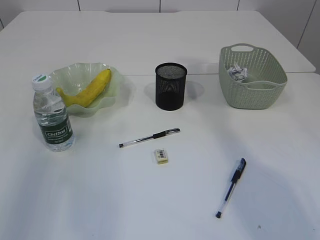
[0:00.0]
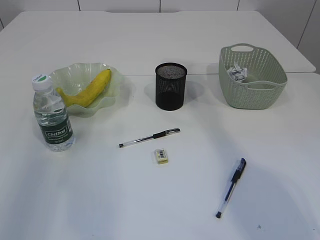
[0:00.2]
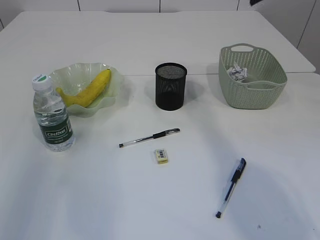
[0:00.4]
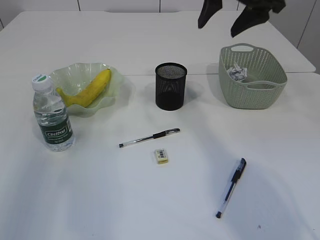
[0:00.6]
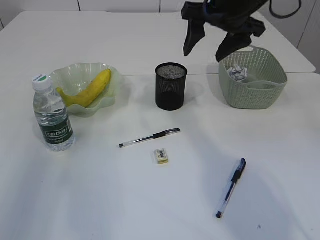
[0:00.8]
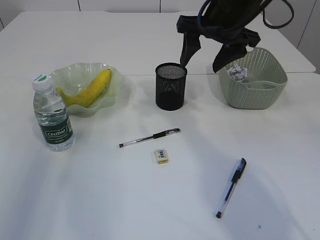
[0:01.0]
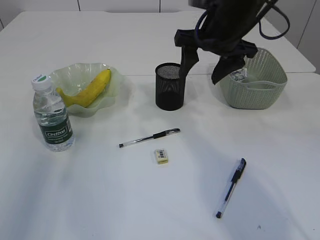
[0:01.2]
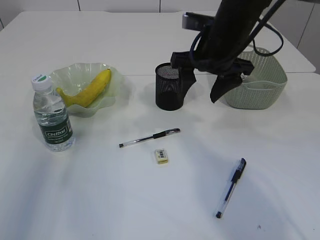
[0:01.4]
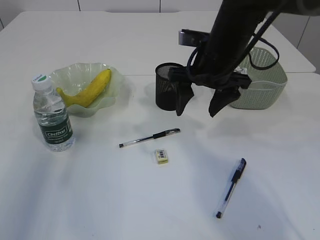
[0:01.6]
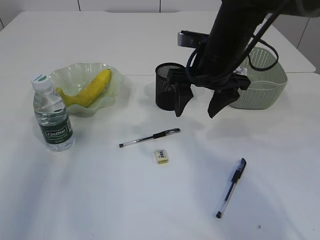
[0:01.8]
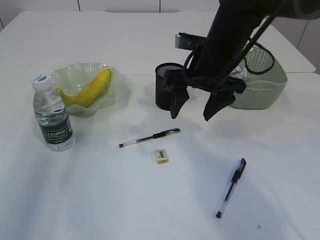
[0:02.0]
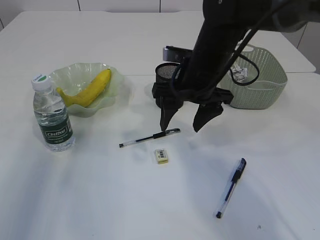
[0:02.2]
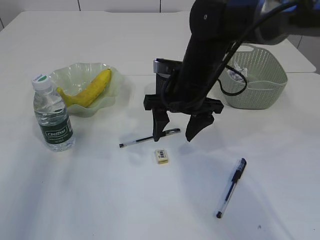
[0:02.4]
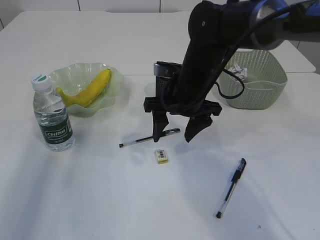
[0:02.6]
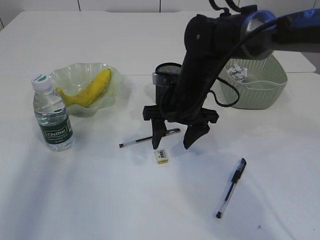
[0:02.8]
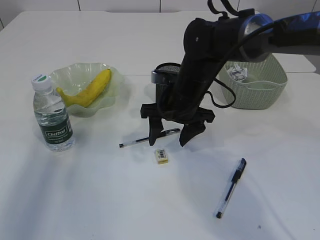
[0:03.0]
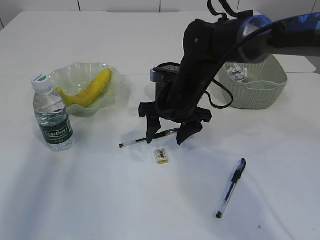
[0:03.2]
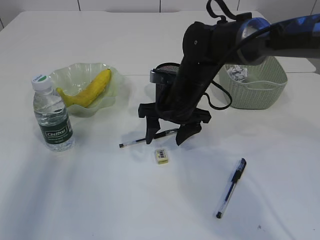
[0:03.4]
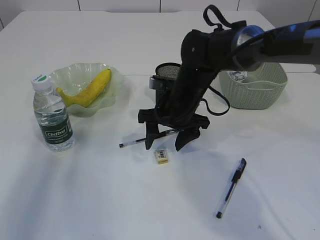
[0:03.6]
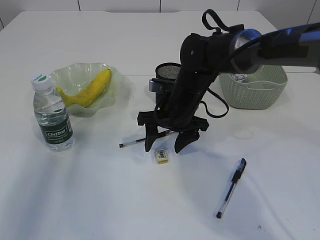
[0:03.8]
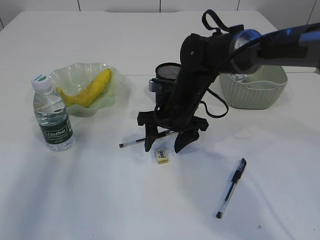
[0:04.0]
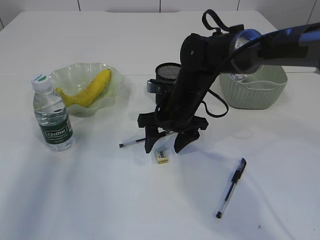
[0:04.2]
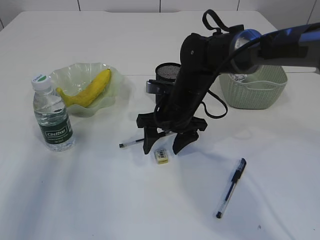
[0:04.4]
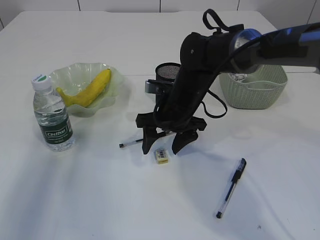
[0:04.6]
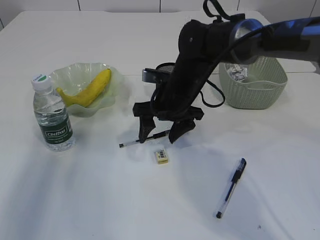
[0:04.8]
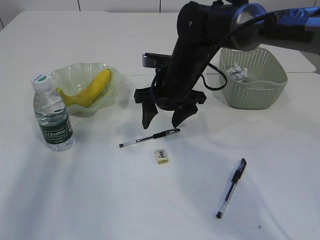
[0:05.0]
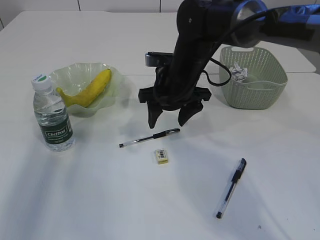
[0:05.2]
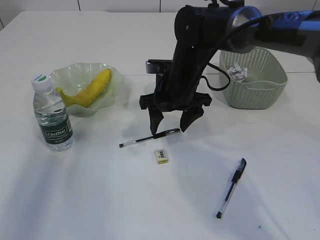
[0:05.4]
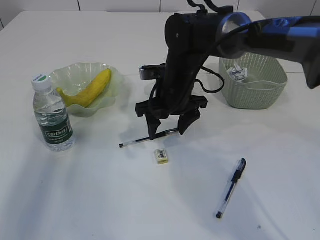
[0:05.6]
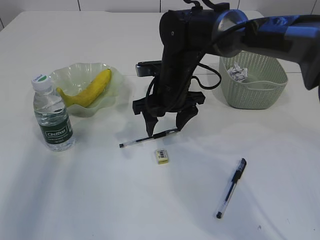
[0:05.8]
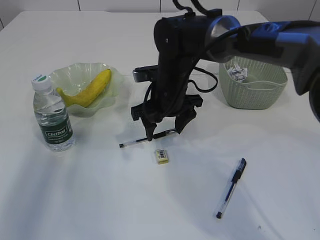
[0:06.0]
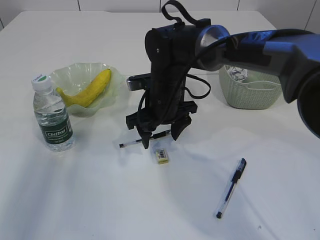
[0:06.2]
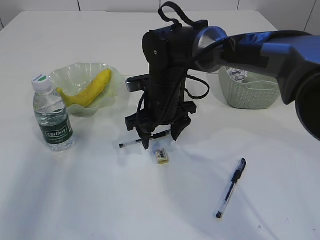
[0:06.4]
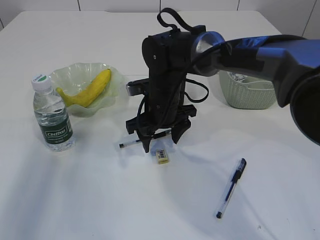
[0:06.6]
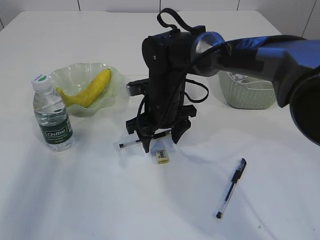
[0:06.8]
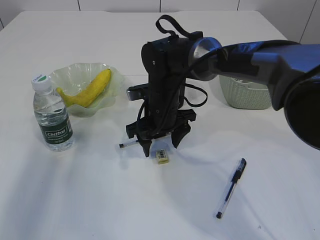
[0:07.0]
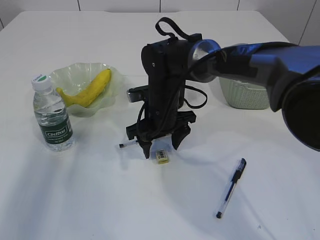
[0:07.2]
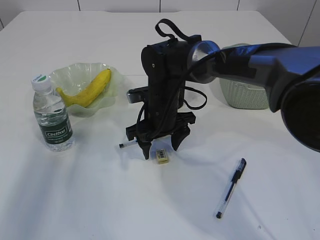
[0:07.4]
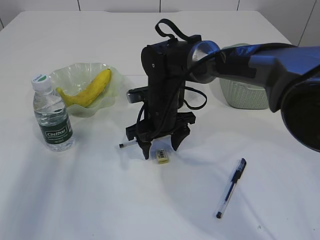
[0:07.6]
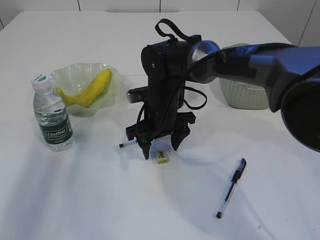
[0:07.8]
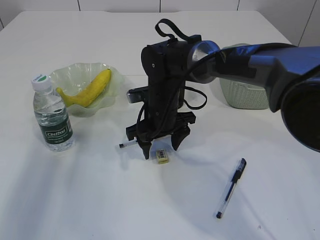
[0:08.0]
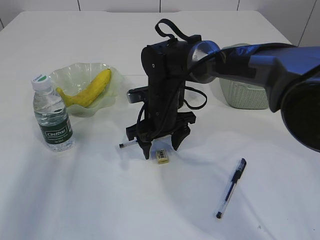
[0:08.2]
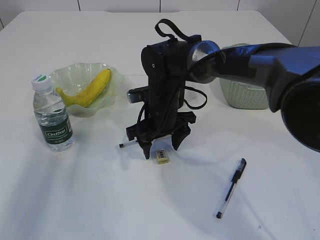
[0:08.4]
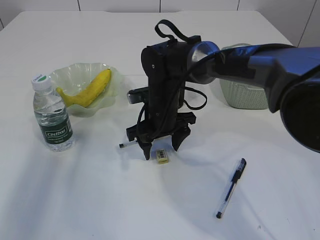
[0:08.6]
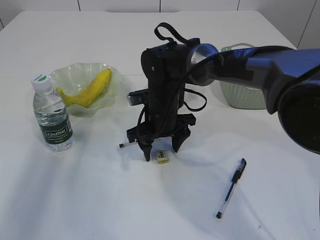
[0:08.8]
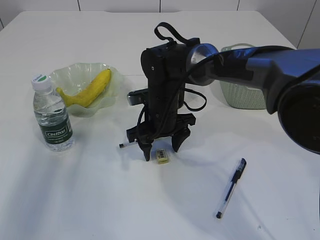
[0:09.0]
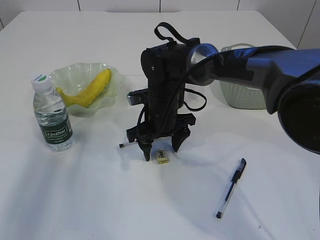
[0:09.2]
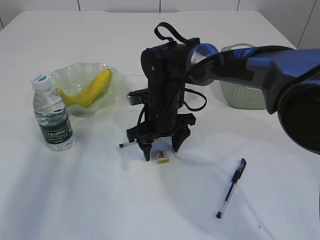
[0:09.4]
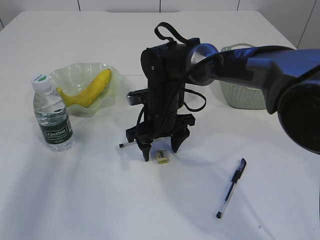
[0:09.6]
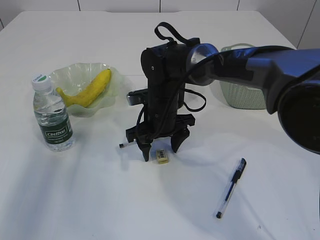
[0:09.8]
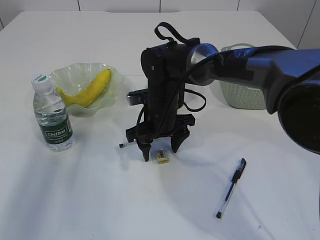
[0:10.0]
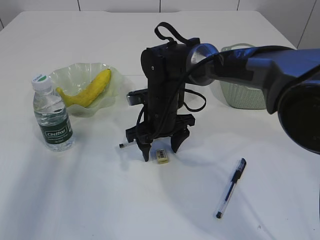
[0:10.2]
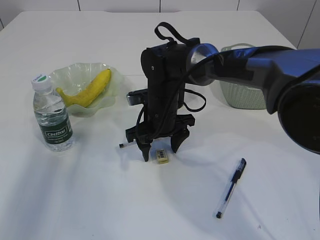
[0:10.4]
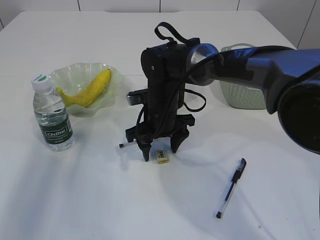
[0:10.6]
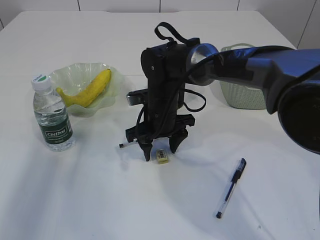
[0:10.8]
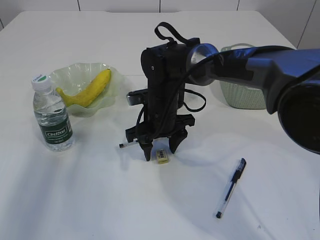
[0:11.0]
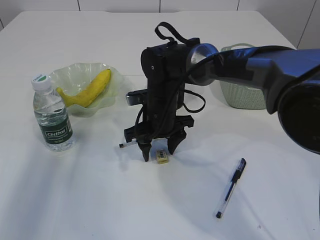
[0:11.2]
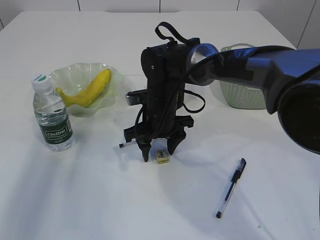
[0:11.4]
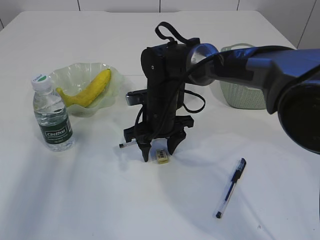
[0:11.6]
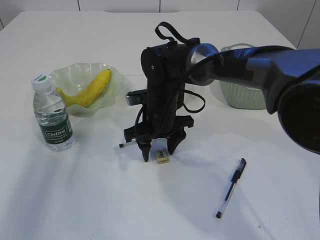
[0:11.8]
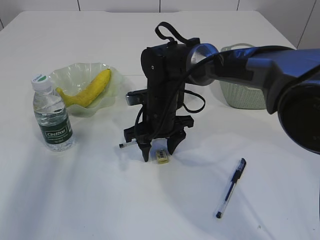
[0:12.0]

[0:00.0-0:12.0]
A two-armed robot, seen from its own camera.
0:00.0 to 0:01.6: The right gripper moves downward and to the left, about 25 cm.
0:01.6 to 0:03.0: The right gripper heads downward, covering approximately 10 cm.
0:03.0 to 0:07.6: The grippers move only a little.
0:07.6 to 0:12.0: Both grippers stay put.

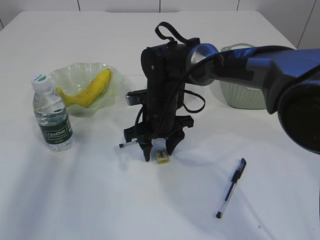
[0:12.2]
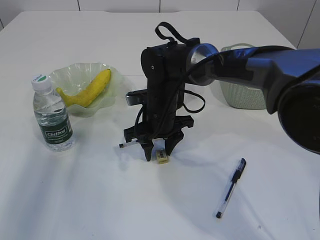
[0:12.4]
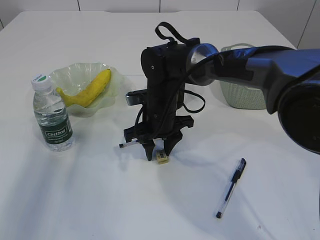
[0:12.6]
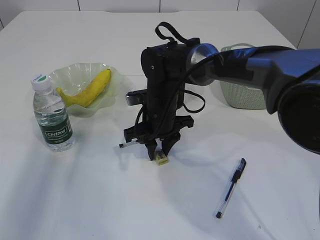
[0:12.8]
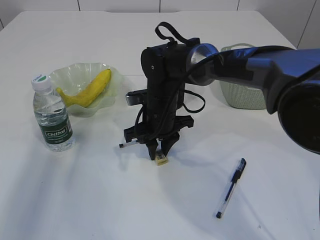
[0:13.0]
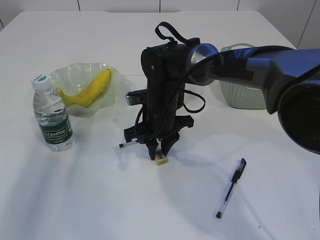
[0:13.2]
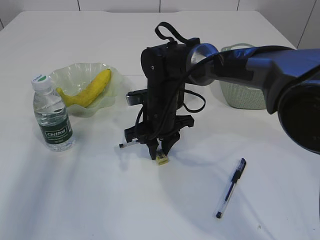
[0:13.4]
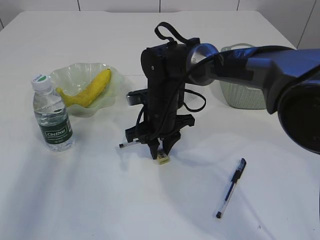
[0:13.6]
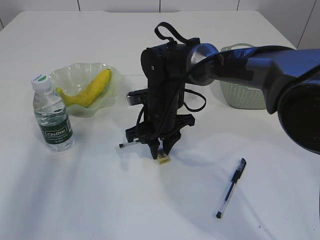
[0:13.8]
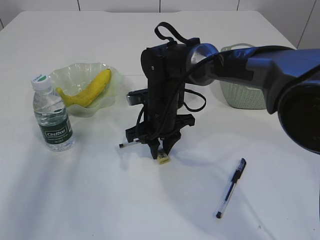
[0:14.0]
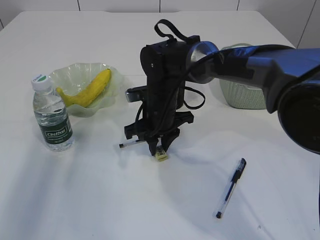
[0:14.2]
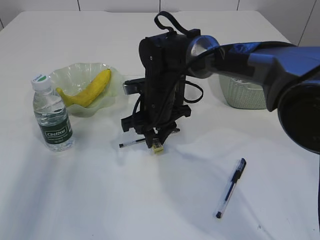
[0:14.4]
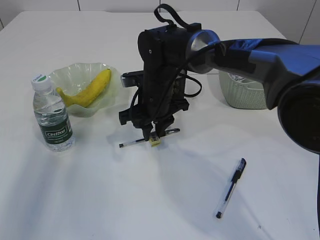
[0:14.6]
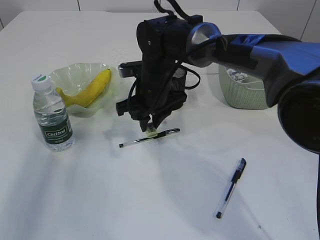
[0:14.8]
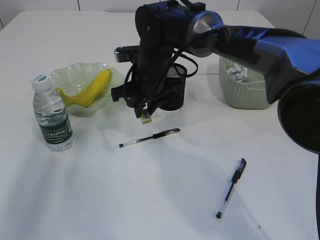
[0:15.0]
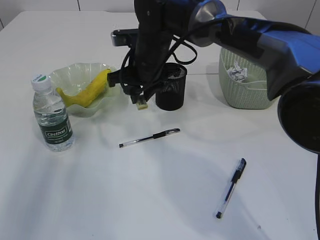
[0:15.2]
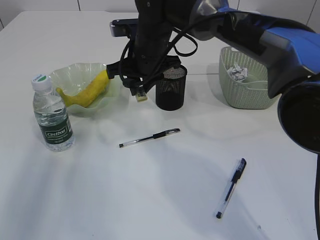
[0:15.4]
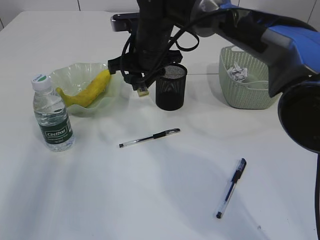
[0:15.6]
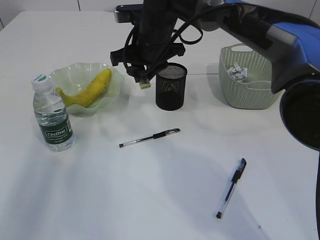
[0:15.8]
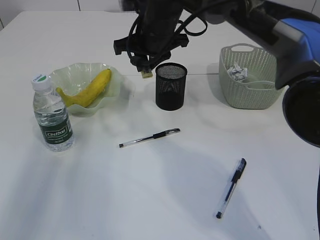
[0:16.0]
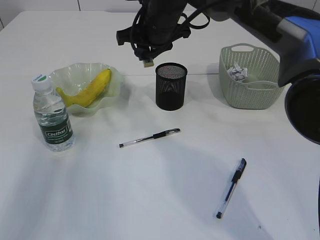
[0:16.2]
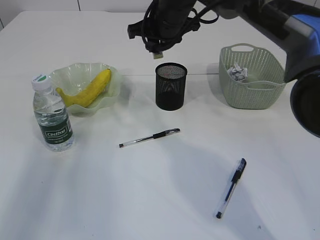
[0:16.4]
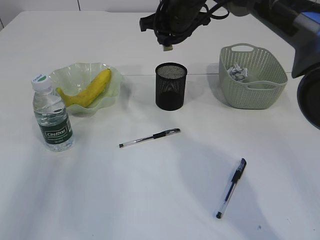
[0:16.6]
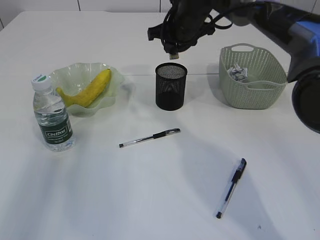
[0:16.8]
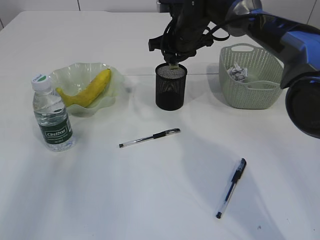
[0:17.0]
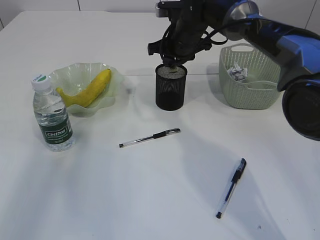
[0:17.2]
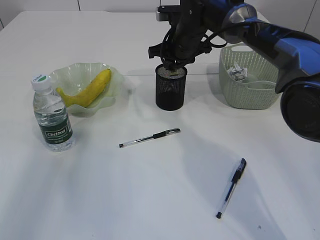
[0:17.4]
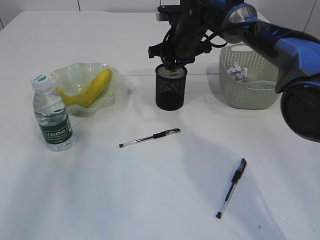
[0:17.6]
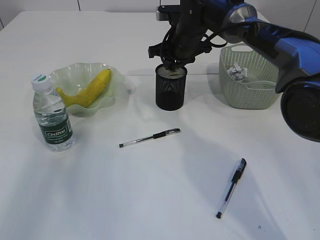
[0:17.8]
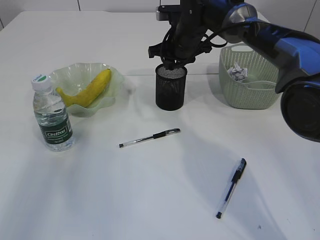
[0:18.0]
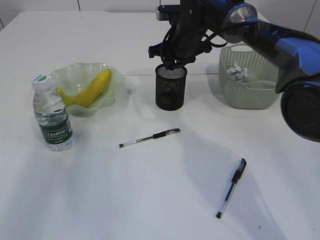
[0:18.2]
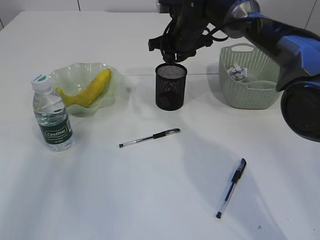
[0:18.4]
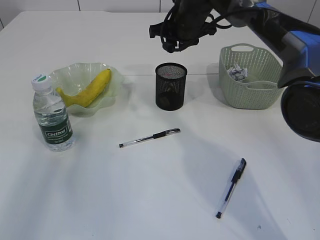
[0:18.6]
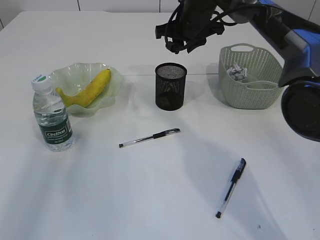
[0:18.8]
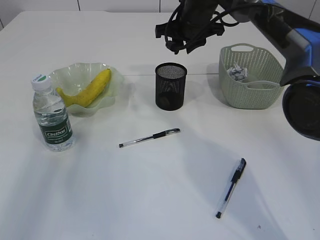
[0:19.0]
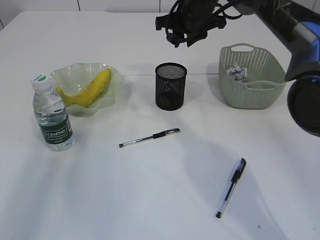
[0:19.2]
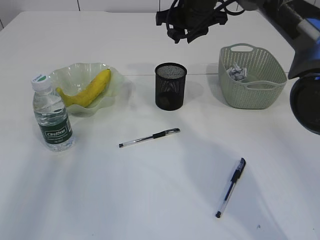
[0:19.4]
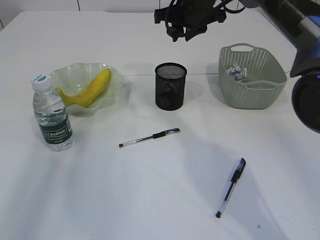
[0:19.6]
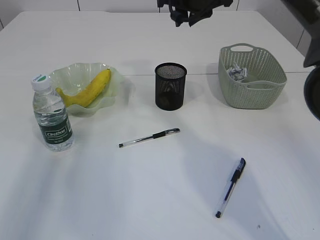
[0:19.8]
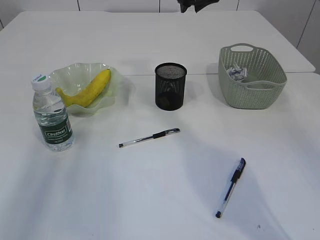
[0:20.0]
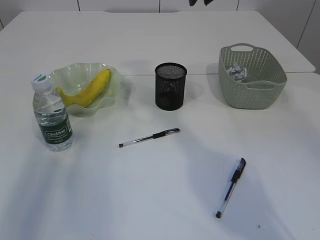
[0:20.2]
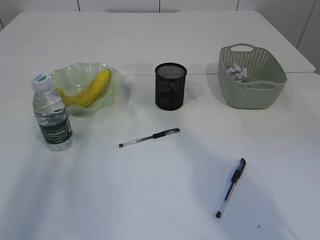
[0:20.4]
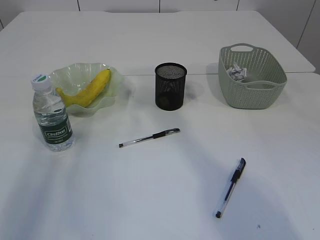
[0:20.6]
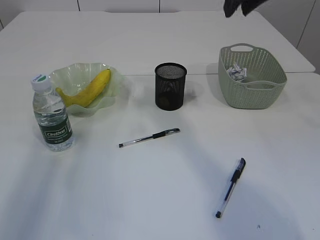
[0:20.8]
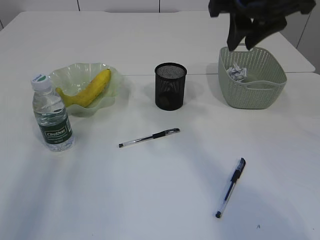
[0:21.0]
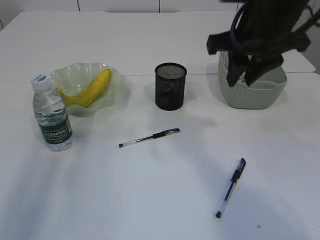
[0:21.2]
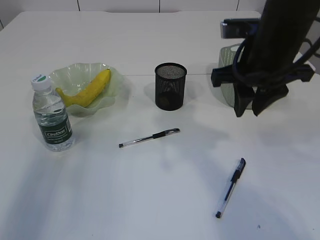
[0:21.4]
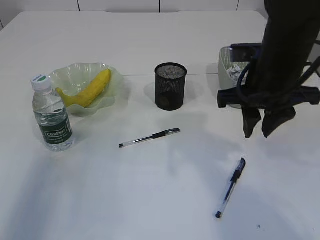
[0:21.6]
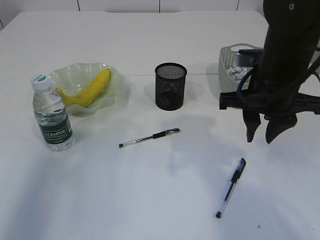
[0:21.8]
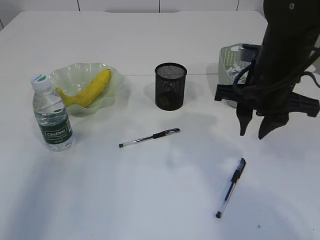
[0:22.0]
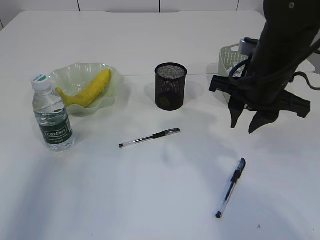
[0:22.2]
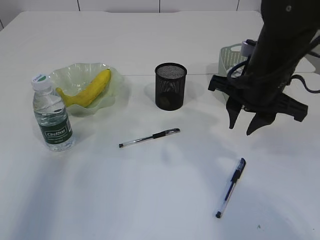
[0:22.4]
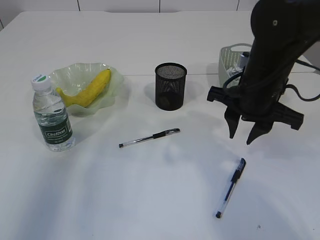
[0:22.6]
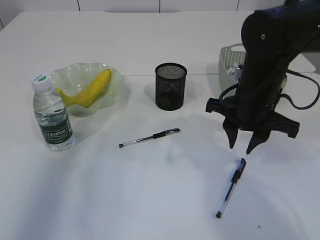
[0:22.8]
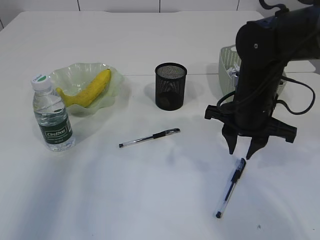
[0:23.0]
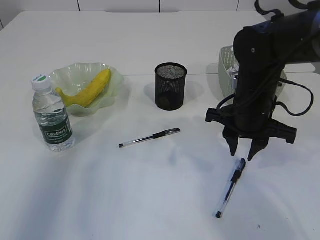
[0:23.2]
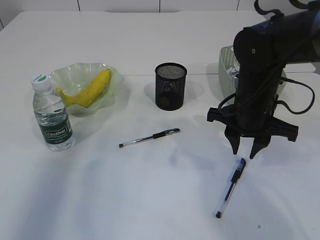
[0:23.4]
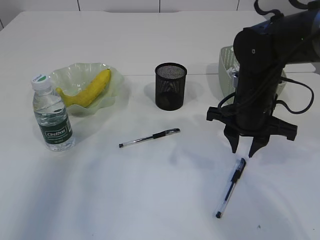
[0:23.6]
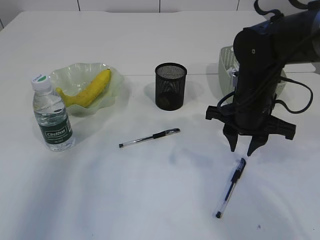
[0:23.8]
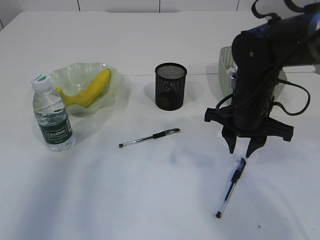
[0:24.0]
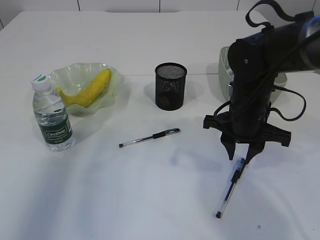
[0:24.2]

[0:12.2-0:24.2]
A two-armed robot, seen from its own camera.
Step, 0:12.2 to 0:14.6: Pick up the eraser.
Step, 0:14.8 to 0:18.6: Place the eraser into the pen holder.
0:12.2 to 0:13.8: The right gripper closes.
0:13.8 to 0:15.2: The right gripper moves upward, approximately 10 cm.
0:15.2 to 0:16.6: The right gripper is displaced to the right, forward and upward by about 10 cm.
0:16.6 to 0:18.2: The right gripper shifts roughly 5 cm downward.
0:18.2 to 0:19.8: The right gripper moves upward, approximately 10 cm.
0:19.8 to 0:21.2: The right gripper is displaced backward by roughly 15 cm.
0:21.2 to 0:22.6: The right gripper heads downward, covering some 10 cm.
0:22.6 to 0:24.2: The right gripper travels downward by about 5 cm.
